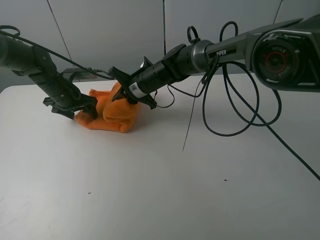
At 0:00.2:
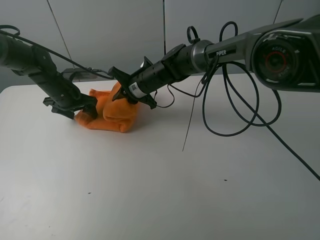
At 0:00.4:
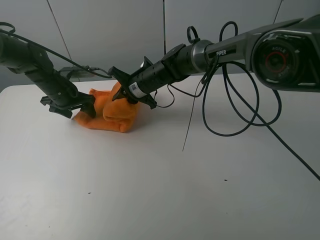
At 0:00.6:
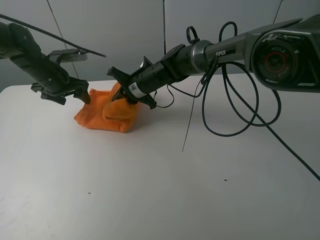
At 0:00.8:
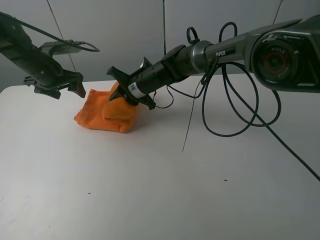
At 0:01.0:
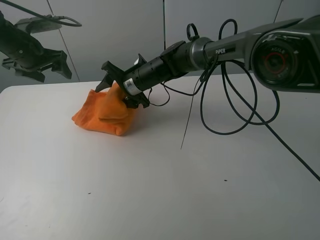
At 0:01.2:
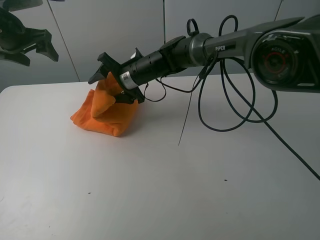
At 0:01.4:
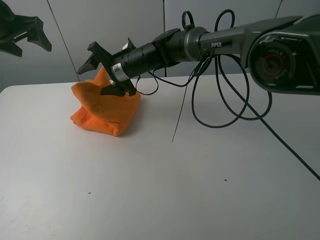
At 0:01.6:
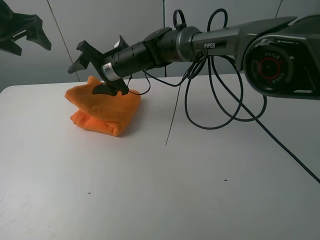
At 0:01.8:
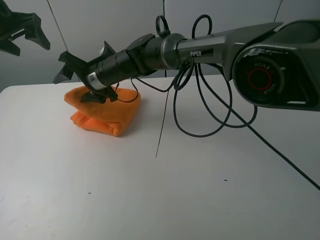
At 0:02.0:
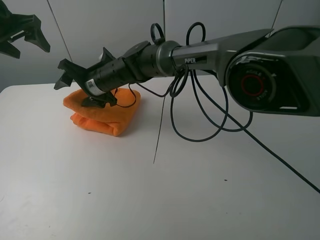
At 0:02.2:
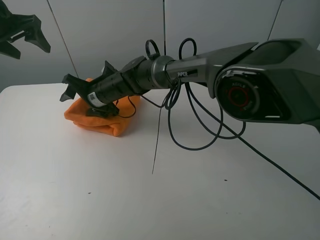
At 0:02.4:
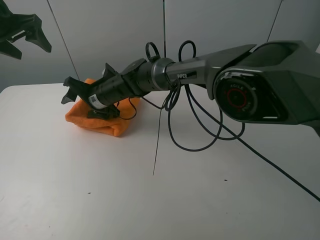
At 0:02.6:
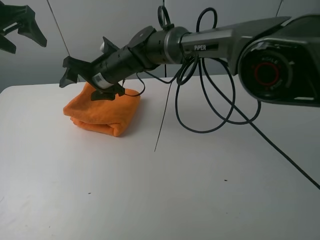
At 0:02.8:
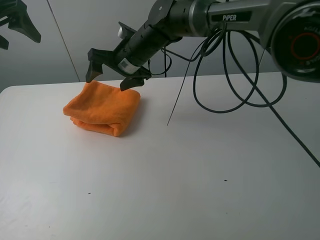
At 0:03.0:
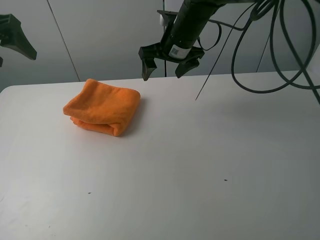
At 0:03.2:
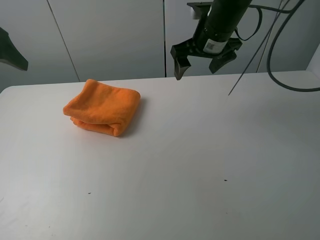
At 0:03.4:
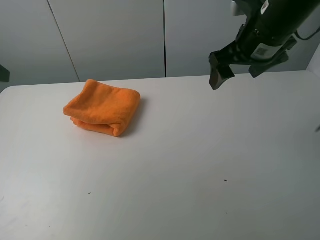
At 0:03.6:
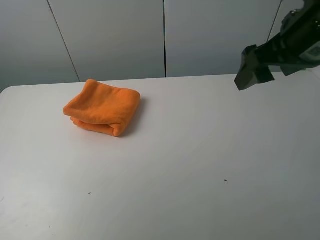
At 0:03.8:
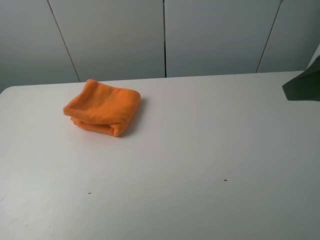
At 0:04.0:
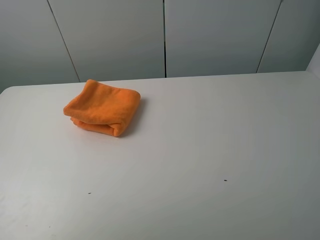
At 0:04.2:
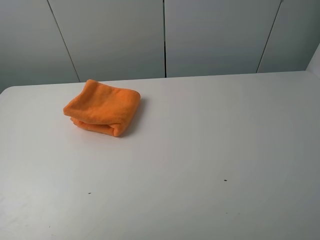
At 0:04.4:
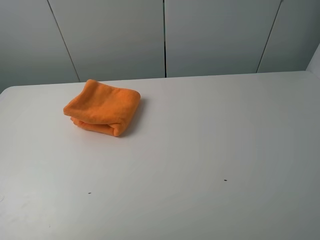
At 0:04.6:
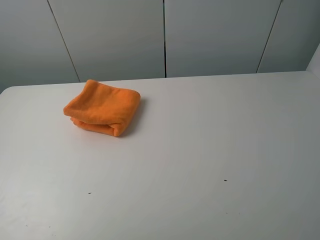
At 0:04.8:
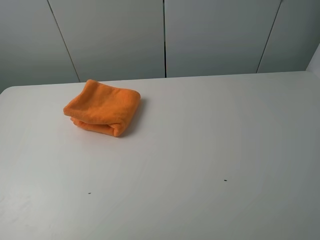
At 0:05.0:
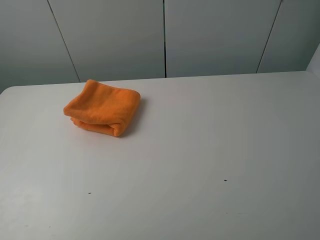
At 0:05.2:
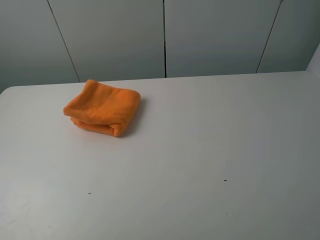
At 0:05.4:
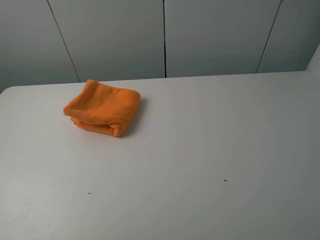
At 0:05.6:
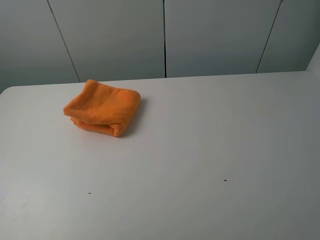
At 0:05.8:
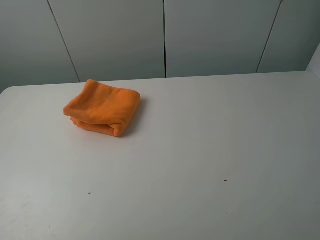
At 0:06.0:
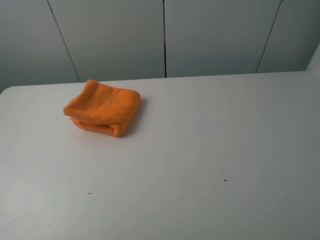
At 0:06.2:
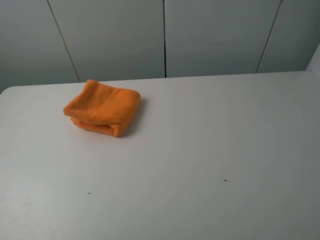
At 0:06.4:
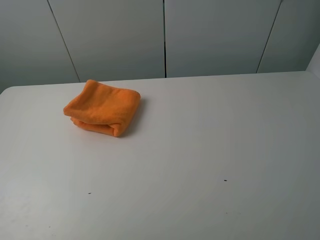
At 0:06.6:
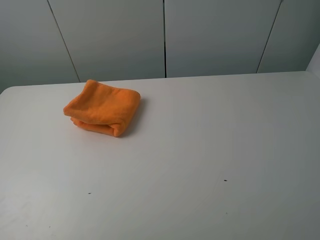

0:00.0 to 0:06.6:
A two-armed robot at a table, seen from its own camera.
Task of the whole recording: fold the towels on the table.
Step, 0:01.6 to 0:02.4: Arrange the orange towel with the right hand.
0:00.0 to 0:01.6: The left gripper heads upward, covering approximately 20 cm. Meanwhile the right gripper heads to the left and upward, covering about 10 cm, and opens.
0:01.6 to 0:03.2: The left gripper shifts some 15 cm backward; the right gripper goes some 25 cm to the right and upward.
0:03.2 to 0:05.0: The left gripper shifts about 25 cm backward; the right gripper goes roughly 40 cm backward and to the right.
